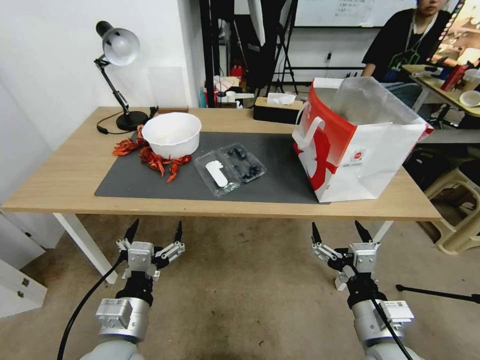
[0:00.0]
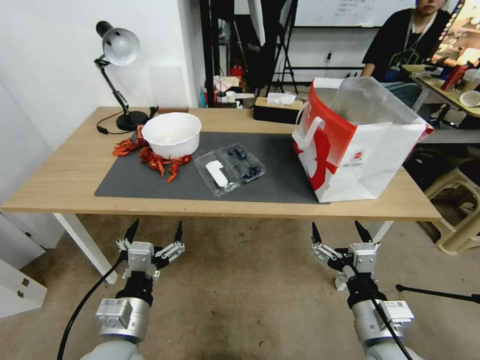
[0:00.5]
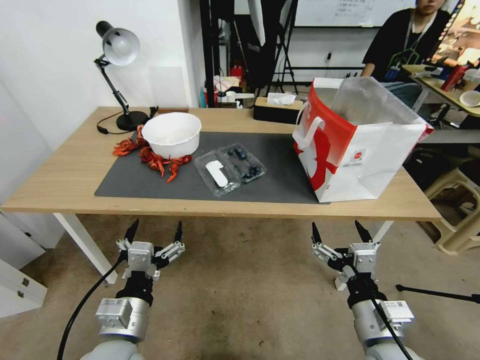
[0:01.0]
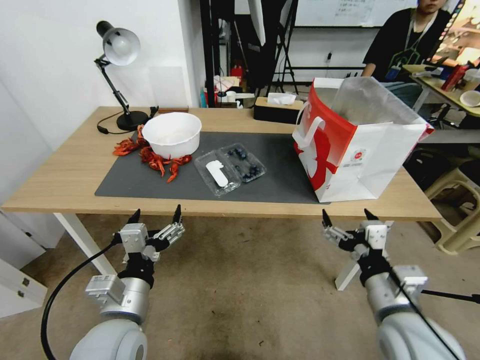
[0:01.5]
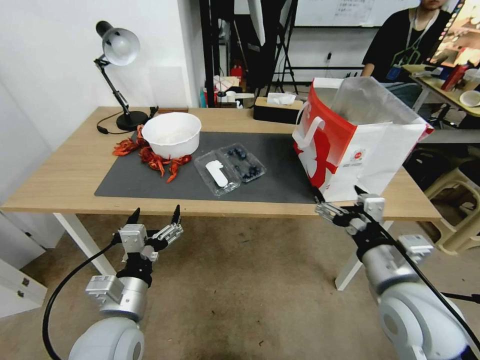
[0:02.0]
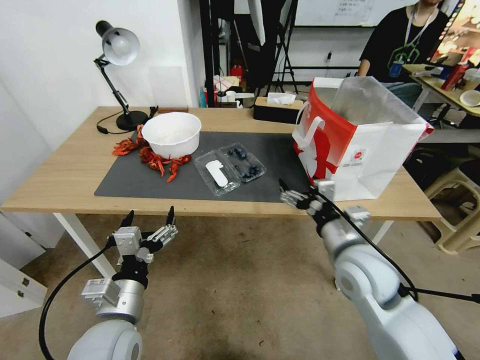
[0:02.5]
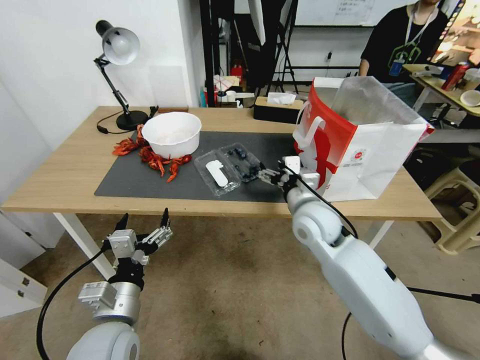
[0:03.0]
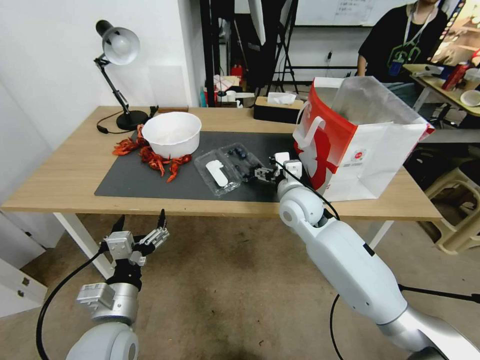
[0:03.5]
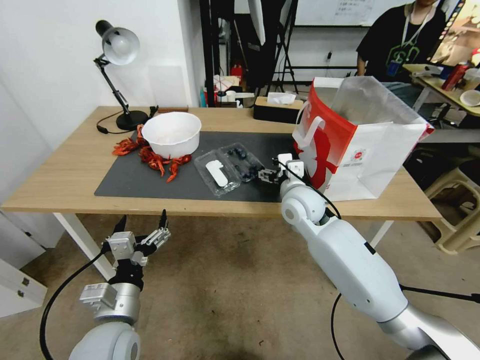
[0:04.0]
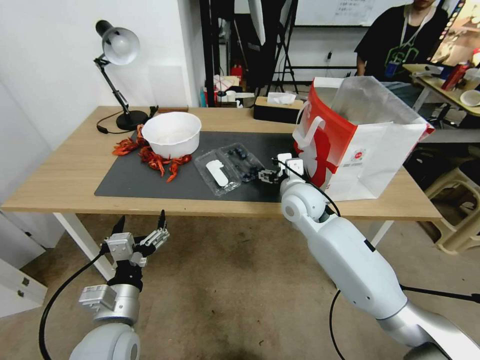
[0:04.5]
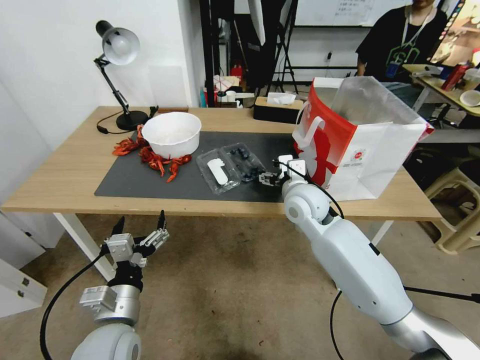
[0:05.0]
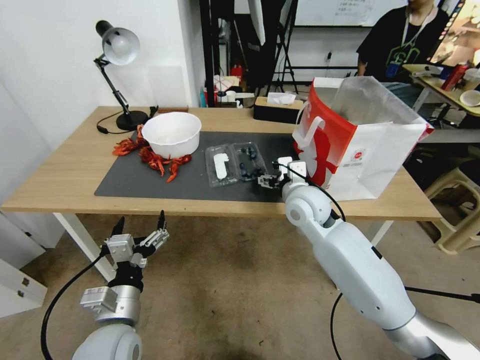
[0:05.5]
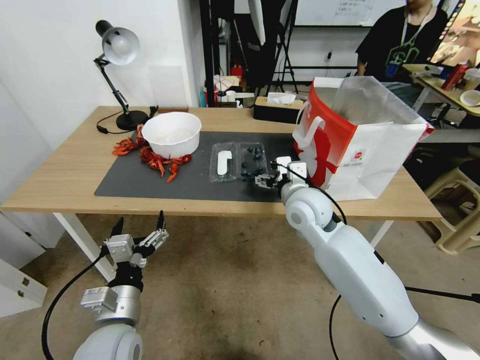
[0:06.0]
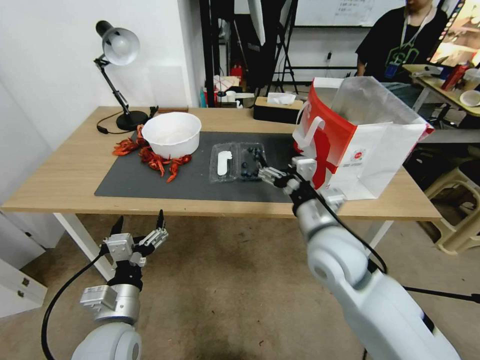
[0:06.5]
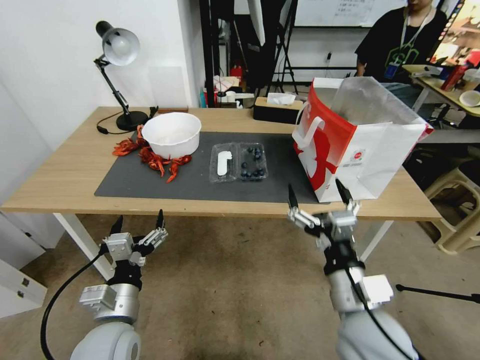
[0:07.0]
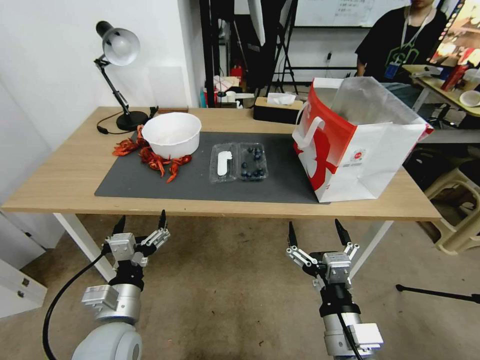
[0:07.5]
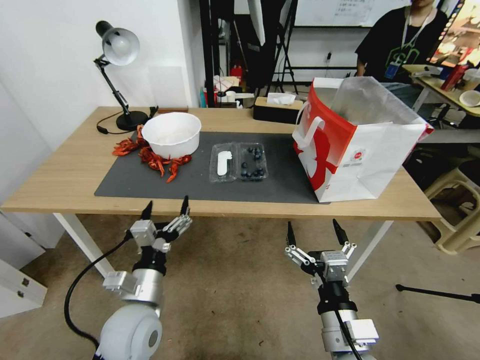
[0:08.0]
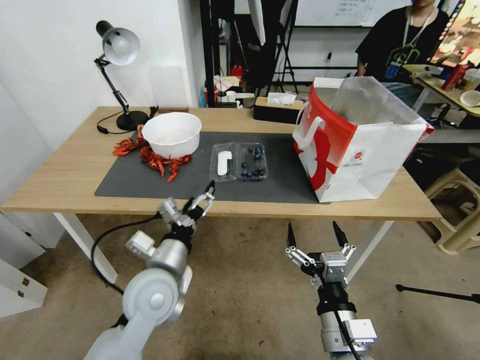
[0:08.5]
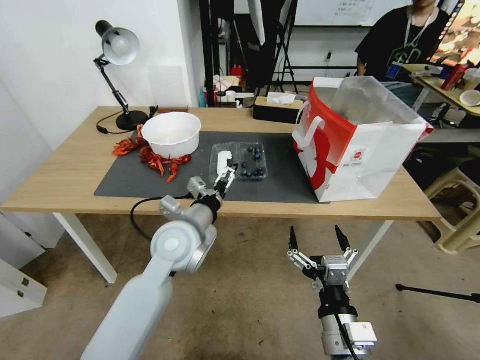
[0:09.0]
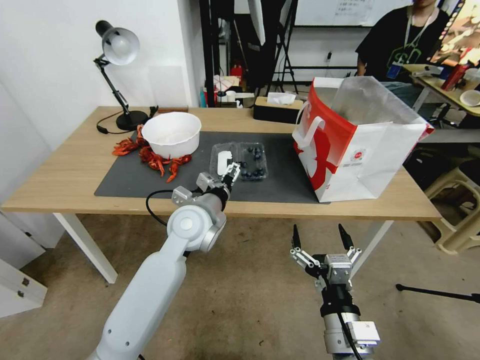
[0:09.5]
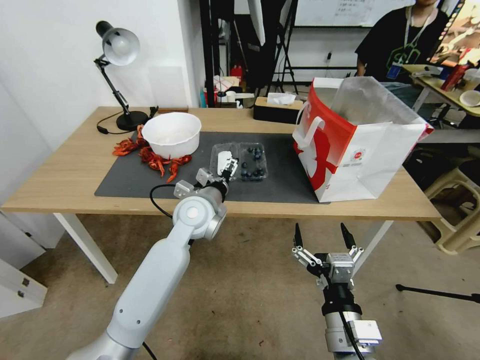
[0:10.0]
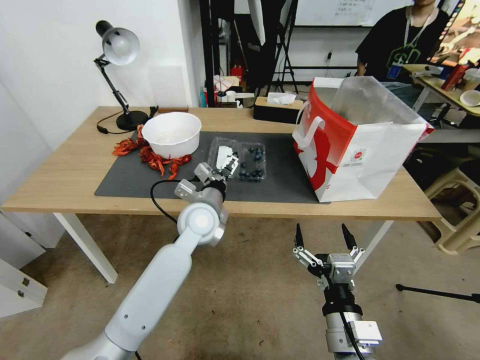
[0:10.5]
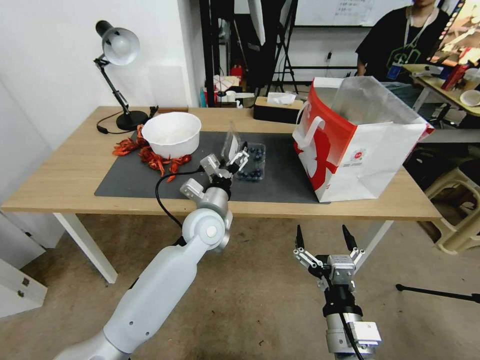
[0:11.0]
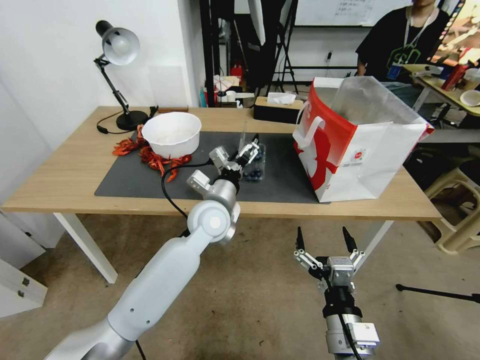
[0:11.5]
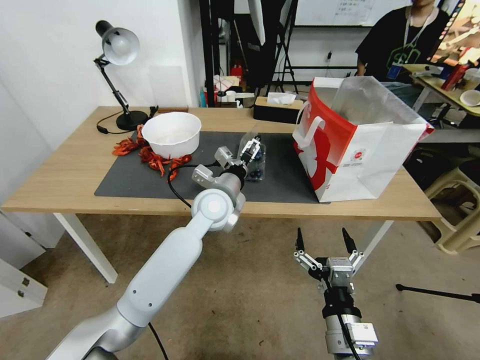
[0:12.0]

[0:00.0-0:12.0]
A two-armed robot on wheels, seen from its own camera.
Task of the whole recording: Close the takeout container lid, then place the container into the takeout bag.
0:02.0 to 0:04.0: The right gripper travels forward and to the left by some 25 cm.
0:04.0 to 0:06.0: The grippers make only small movements.
0:06.0 to 0:08.0: The right gripper heads backward, covering some 30 cm.
0:08.0 to 0:10.0: The left gripper is displaced forward and to the right by roughly 25 cm.

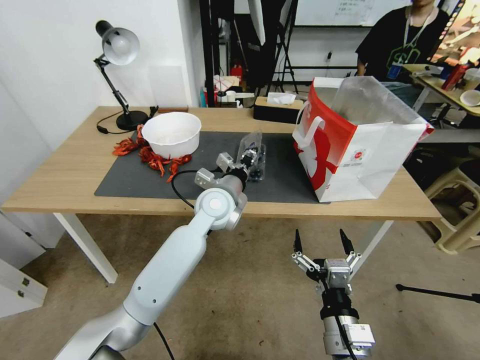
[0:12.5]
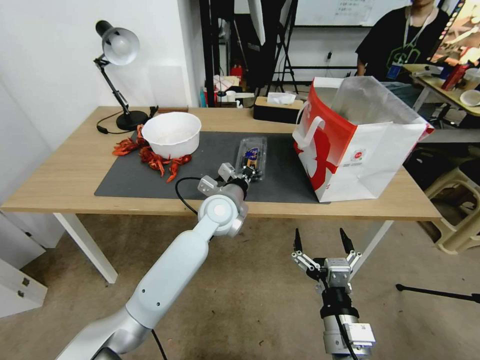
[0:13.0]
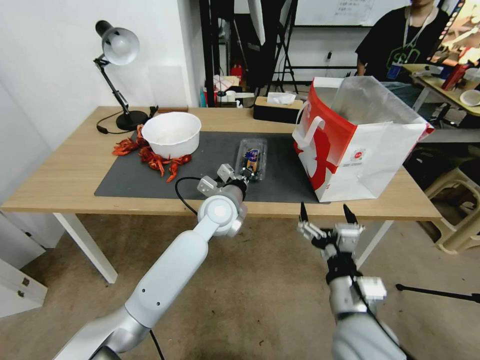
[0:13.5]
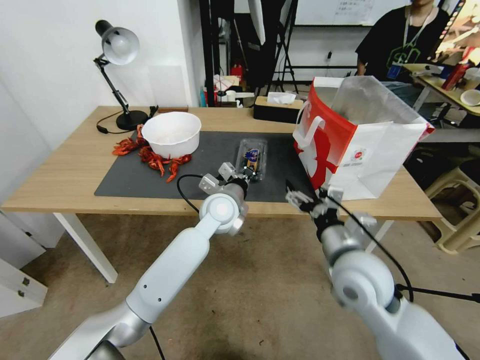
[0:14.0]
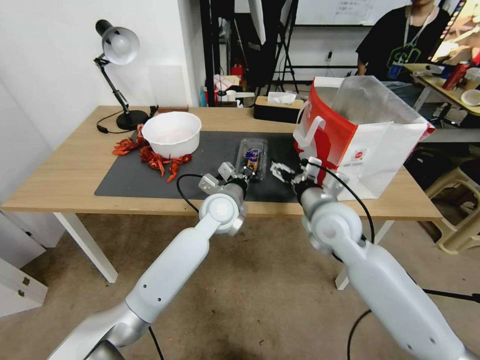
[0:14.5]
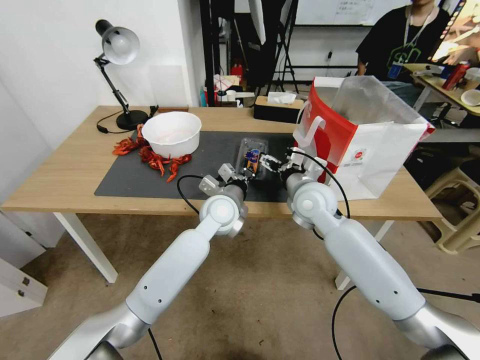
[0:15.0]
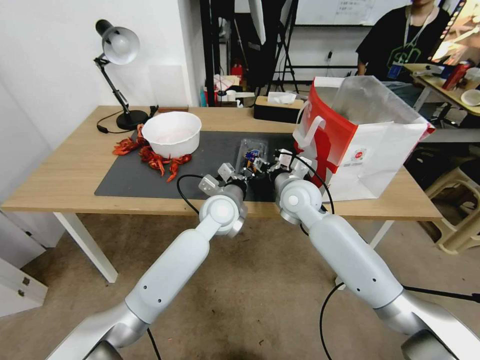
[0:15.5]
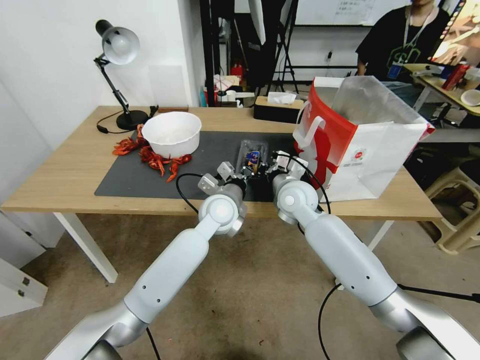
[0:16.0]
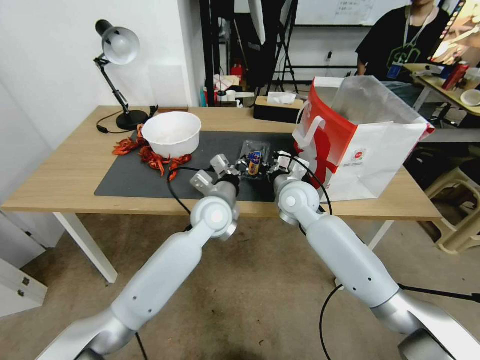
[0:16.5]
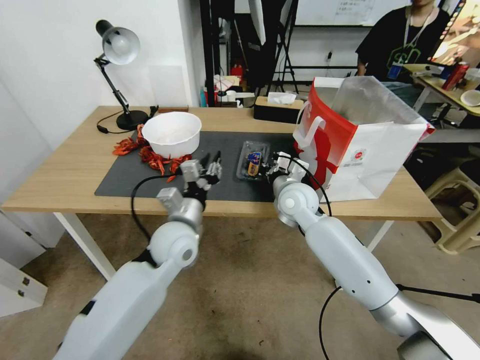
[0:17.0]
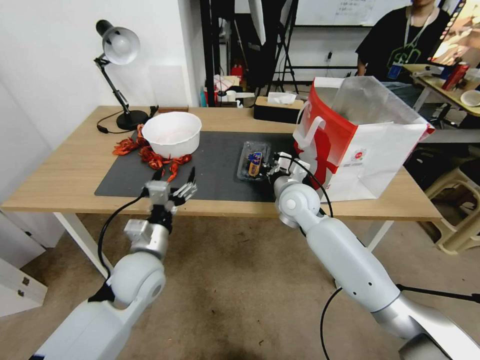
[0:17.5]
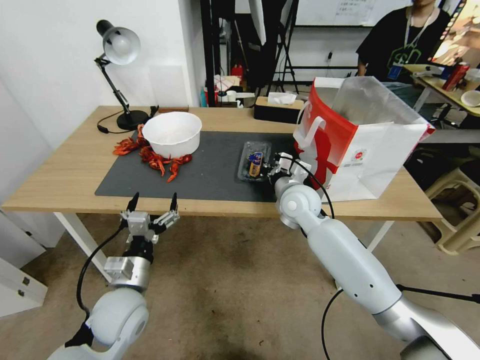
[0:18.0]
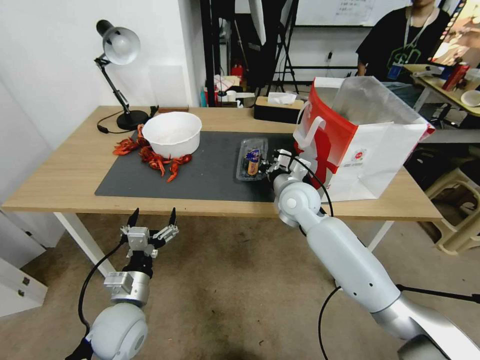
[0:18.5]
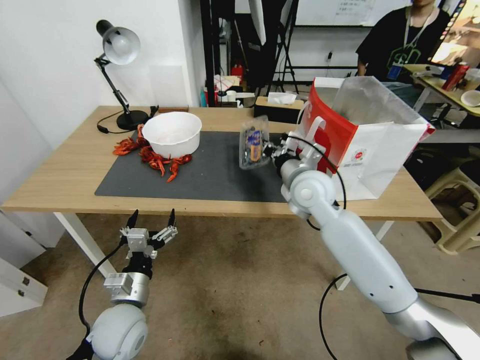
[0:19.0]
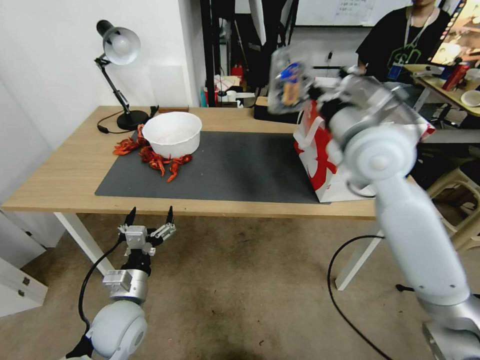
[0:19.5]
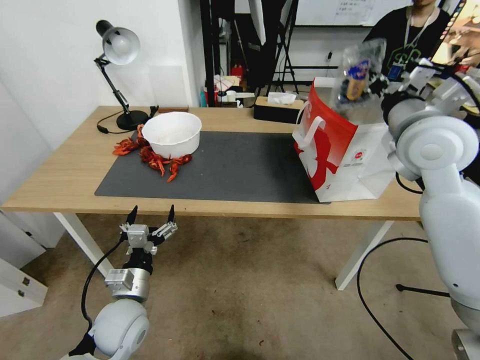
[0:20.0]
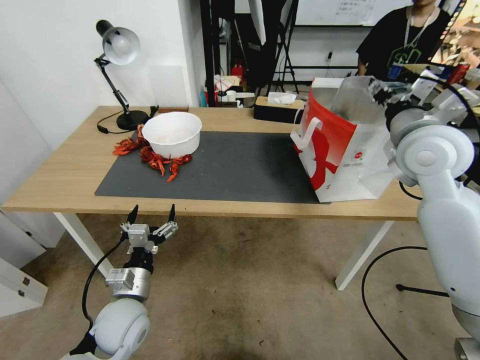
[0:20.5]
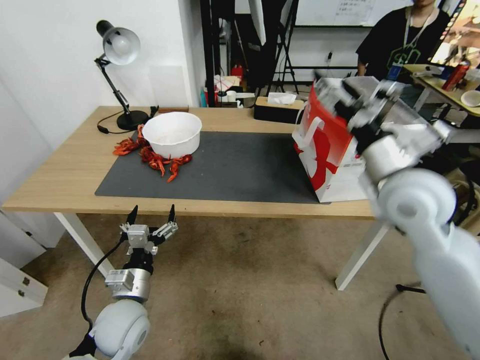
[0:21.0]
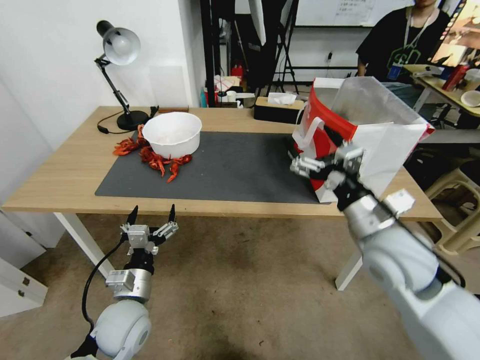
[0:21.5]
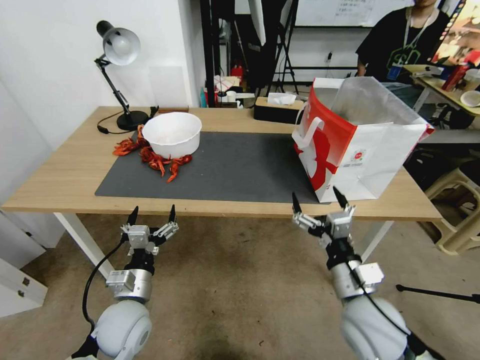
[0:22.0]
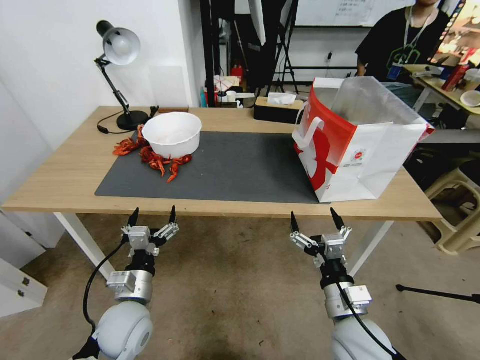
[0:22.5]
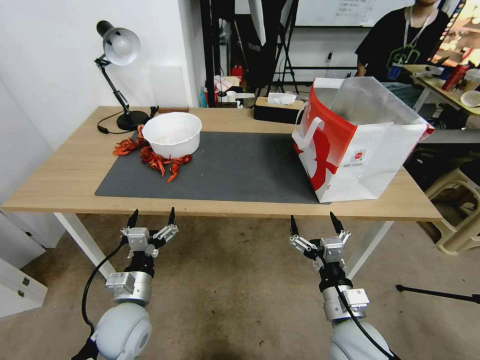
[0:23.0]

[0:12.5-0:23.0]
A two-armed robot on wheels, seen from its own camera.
Task of the whole recording: Close the takeout container lid, then place the container into the takeout bag.
0:12.5 to 0:14.5: The right gripper shifts some 25 cm forward and upward.
0:14.5 to 0:16.5: The right gripper travels forward by roughly 10 cm, and closes.
0:16.5 to 0:19.0: The right gripper heads upward, covering roughly 5 cm, while the left gripper goes approximately 30 cm backward, to the left and downward, and opens up.
0:19.0 to 0:21.0: The right gripper is displaced to the right, backward and upward by approximately 15 cm, and opens.
0:21.0 to 0:23.0: The right gripper shifts roughly 30 cm downward and backward.
